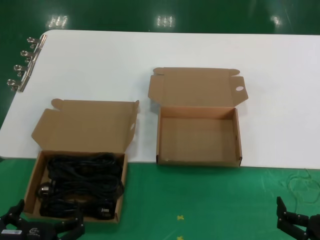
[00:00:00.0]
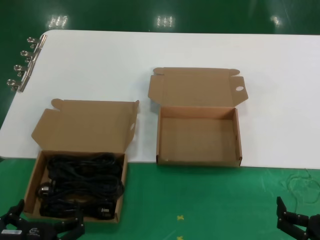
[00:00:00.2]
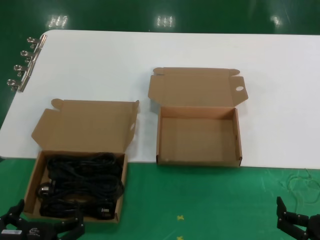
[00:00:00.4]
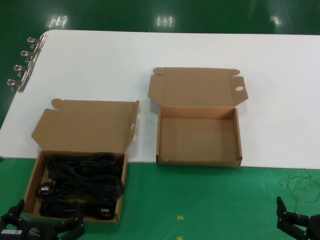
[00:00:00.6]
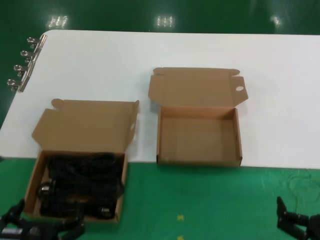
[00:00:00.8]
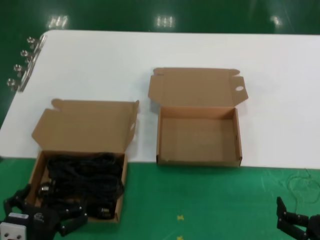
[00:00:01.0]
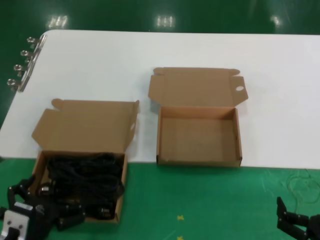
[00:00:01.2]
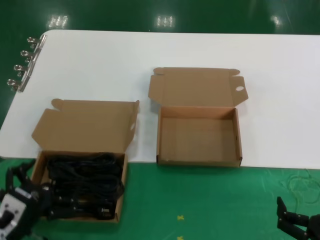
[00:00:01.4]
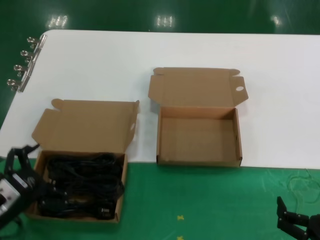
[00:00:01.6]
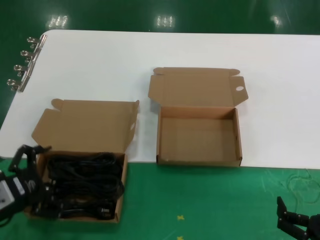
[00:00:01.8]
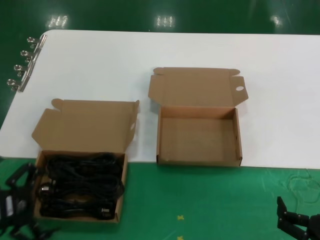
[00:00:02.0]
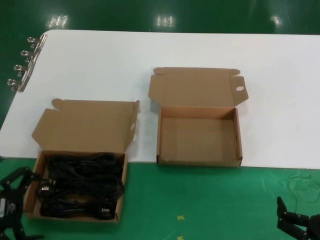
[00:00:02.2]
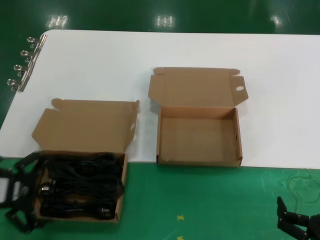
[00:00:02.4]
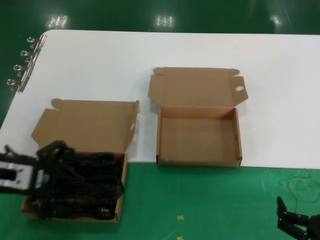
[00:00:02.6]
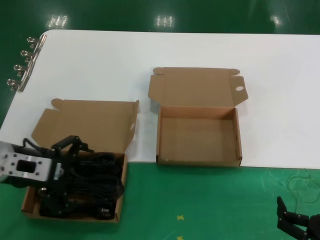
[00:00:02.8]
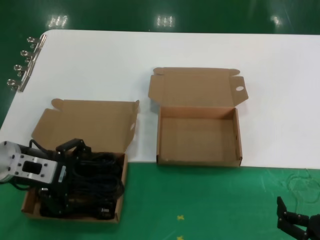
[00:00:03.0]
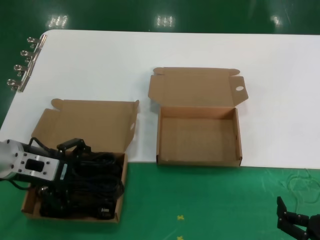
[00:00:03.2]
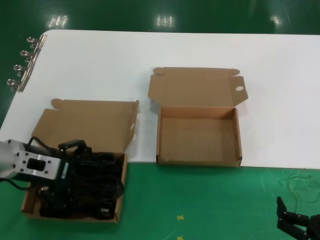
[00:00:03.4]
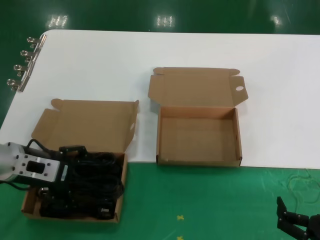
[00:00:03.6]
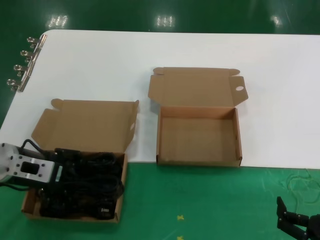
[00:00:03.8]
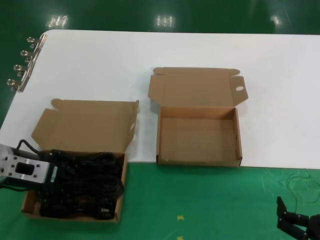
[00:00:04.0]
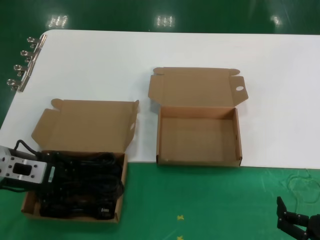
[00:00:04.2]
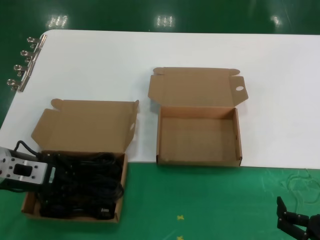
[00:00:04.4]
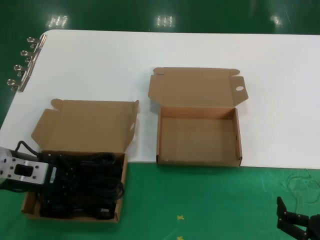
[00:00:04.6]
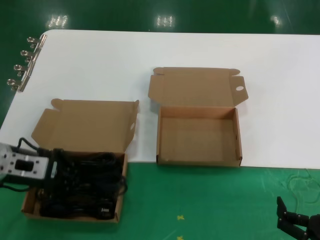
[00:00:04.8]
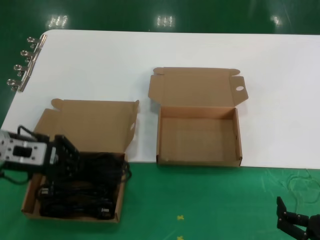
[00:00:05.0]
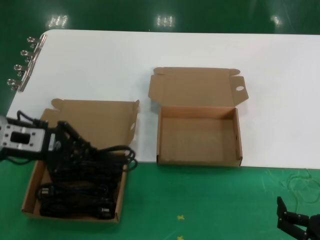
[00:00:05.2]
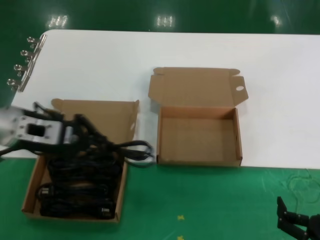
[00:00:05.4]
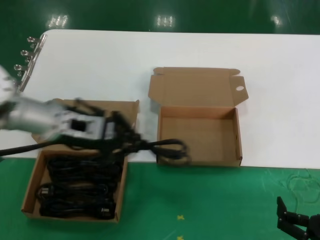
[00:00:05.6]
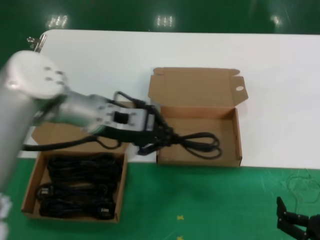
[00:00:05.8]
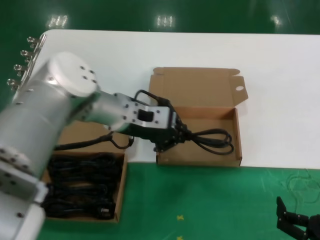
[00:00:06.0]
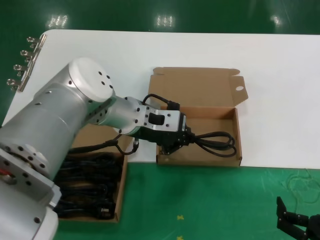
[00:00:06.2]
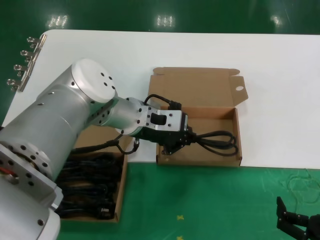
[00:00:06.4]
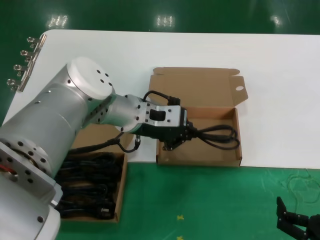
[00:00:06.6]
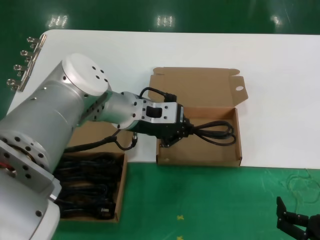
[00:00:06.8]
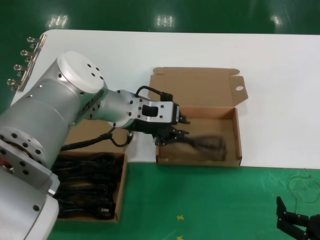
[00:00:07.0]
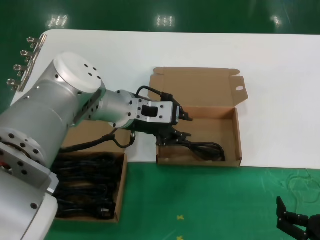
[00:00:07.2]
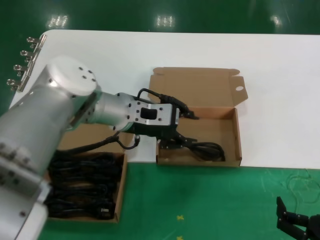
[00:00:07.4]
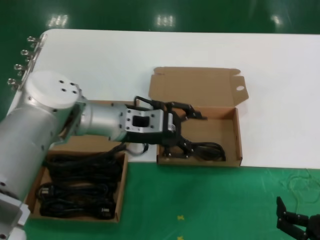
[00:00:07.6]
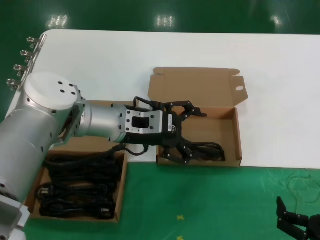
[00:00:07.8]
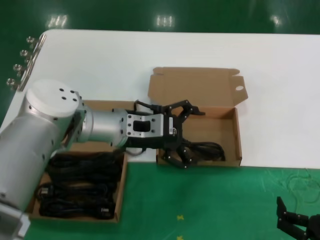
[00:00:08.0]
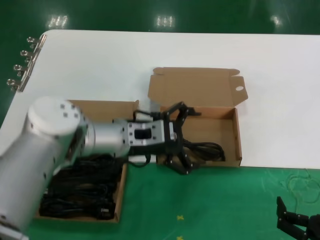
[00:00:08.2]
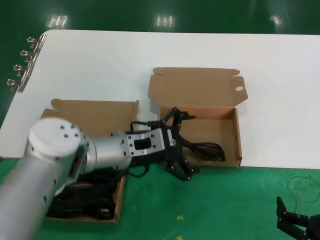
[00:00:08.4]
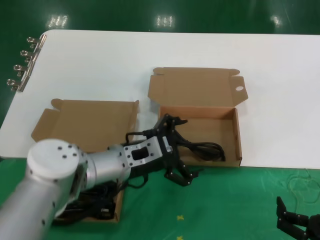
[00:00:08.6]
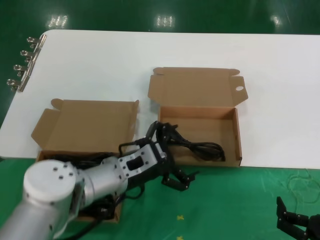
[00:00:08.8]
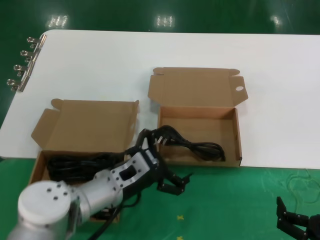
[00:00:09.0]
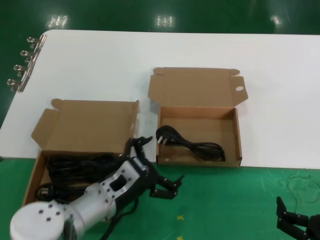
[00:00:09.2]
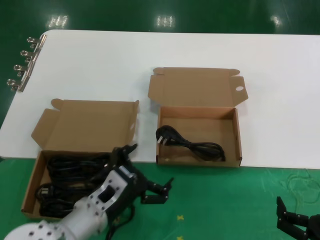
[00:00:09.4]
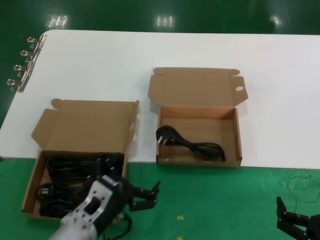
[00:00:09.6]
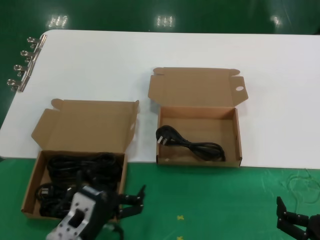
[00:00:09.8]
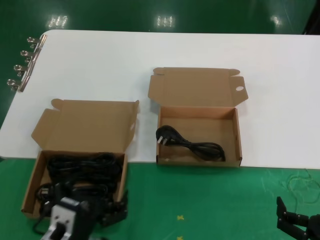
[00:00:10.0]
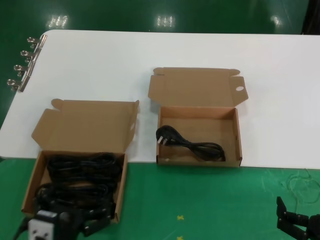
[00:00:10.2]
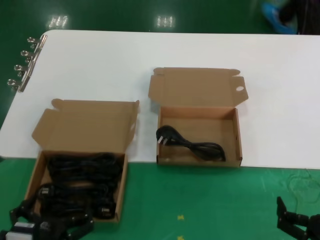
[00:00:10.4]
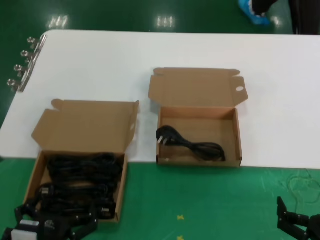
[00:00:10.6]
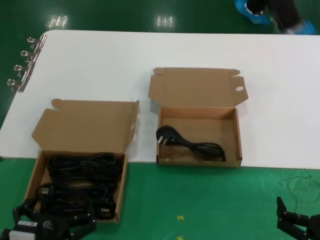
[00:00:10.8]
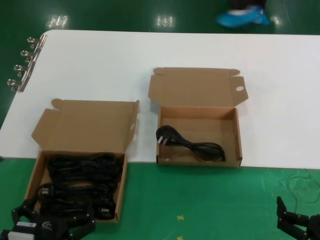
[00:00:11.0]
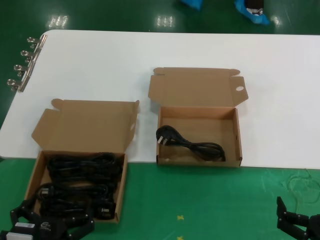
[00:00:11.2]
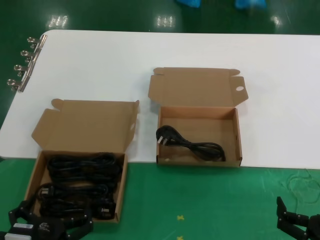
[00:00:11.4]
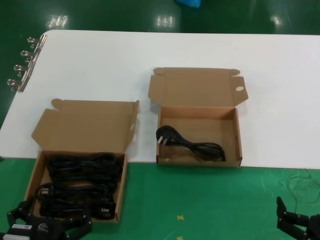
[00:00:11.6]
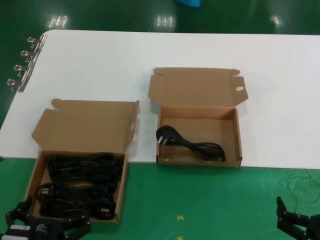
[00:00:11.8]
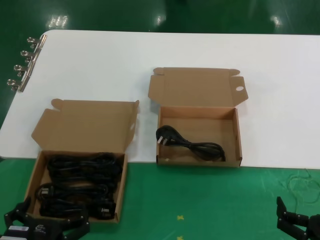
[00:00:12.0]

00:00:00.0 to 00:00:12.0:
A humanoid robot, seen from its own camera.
Task of the whole recording: take the parts from the box containing them and put them into an empty box.
Step, 00:00:00.0 to 00:00:04.4: Grasp the data cable.
Step, 00:00:04.8 to 00:00:07.6: Place the data cable in the another box.
00:00:00.0 to 00:00:01.6: The left hand heads to the left, forward and upward, covering about 15 cm.
00:00:01.6 to 00:00:03.0: The left hand heads upward and forward, covering roughly 15 cm.
00:00:03.0 to 00:00:04.4: The hands stay close to where they were, moving slightly.
00:00:04.4 to 00:00:06.0: The left hand moves to the right, about 20 cm.
00:00:06.0 to 00:00:07.6: There are only small adjustments of the hands.
00:00:07.6 to 00:00:09.0: The left hand shifts approximately 15 cm downward.
00:00:09.0 to 00:00:10.4: The left hand is displaced backward, downward and to the left by about 20 cm.
00:00:10.4 to 00:00:12.0: The hands stay close to where they were, moving slightly.

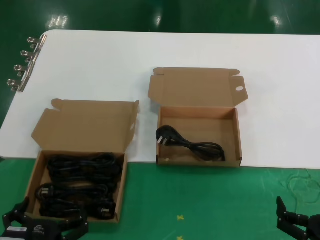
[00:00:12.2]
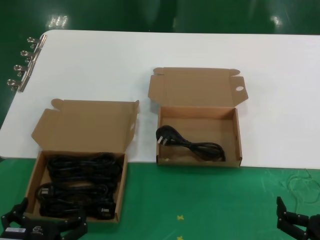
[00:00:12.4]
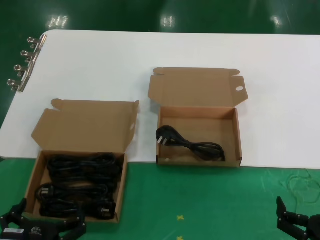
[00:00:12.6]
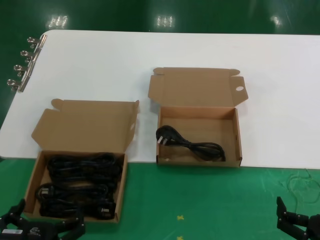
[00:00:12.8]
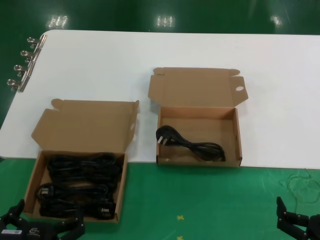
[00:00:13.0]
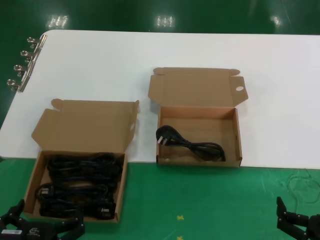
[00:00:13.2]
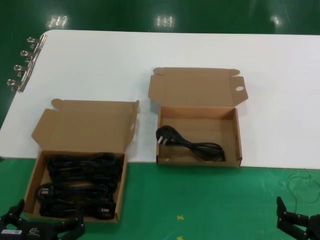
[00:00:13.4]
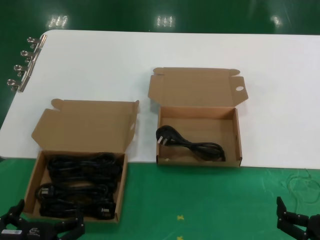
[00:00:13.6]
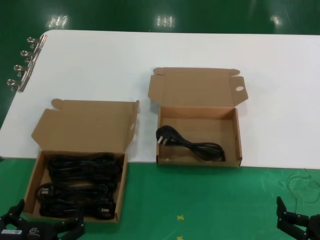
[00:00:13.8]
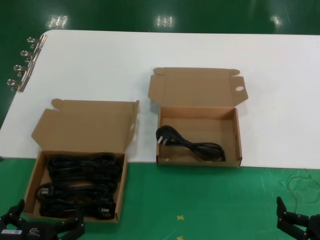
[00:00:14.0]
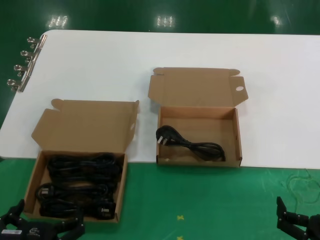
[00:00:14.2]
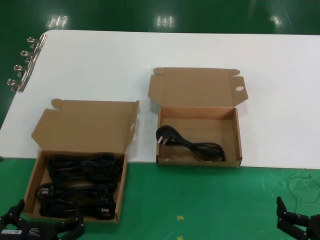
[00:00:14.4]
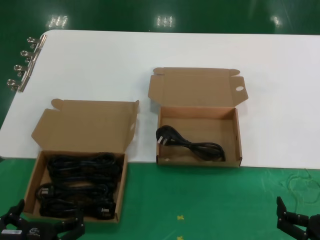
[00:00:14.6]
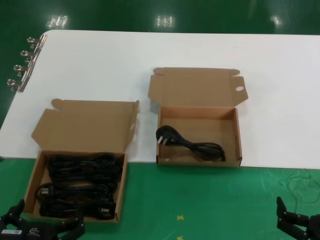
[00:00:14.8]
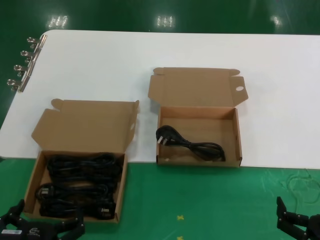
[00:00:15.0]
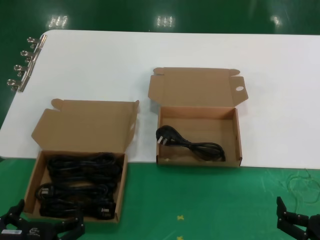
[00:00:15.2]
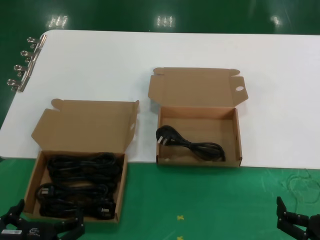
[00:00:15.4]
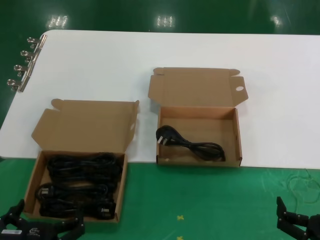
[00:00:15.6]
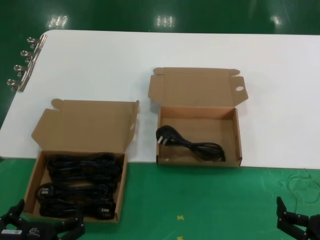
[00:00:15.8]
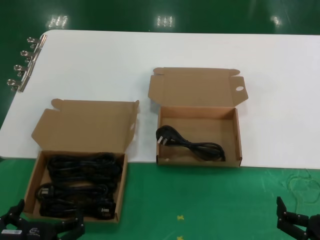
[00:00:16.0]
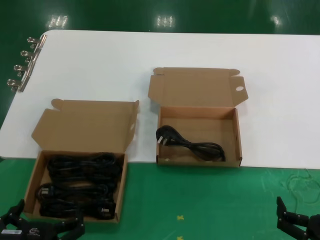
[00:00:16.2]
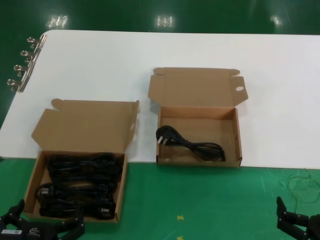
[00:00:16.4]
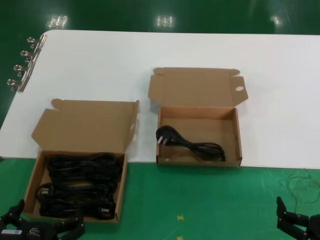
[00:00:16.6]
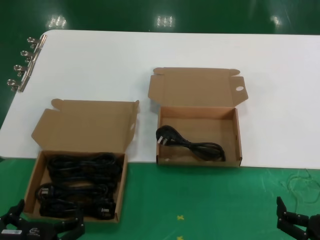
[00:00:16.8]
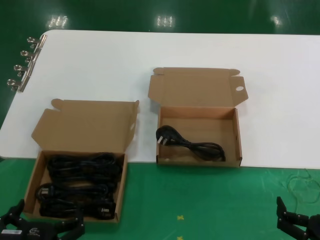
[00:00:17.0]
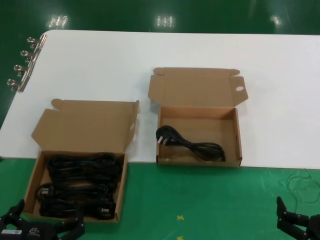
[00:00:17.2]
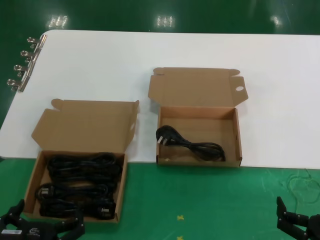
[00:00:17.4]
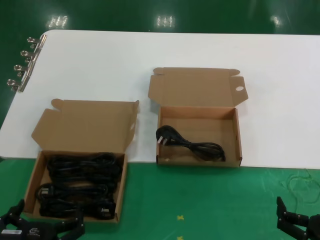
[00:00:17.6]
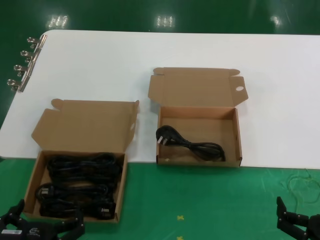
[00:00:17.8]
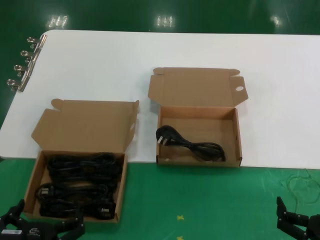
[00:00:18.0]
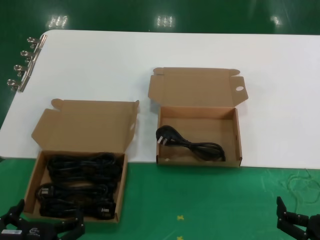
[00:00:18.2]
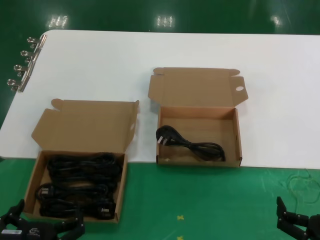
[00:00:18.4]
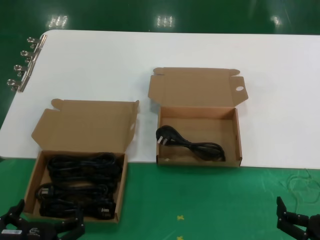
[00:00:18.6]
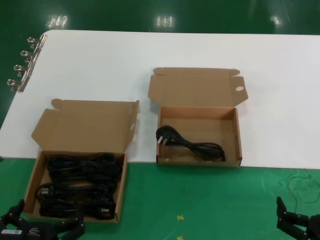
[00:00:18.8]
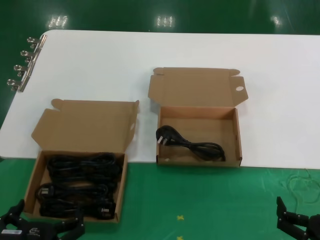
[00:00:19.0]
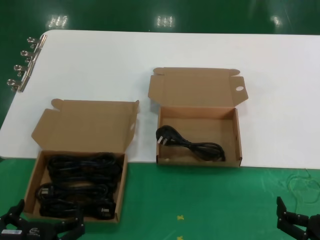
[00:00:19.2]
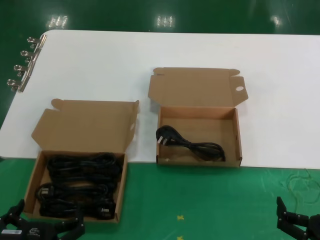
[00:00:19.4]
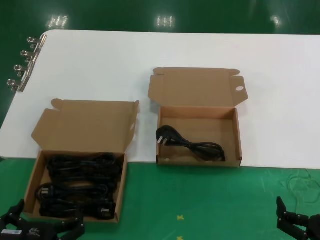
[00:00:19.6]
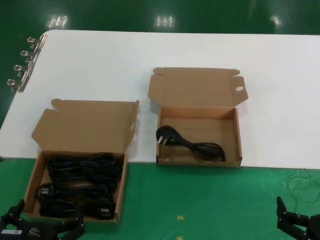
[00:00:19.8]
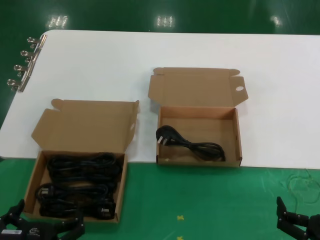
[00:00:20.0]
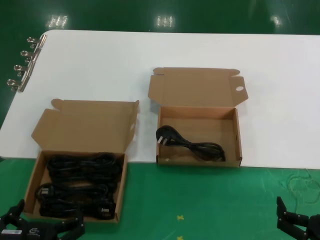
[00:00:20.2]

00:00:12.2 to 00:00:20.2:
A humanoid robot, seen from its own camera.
Task of the whole recording: take the parts from the box containing them and put them into an empty box.
00:00:12.2 to 00:00:20.2: Neither hand changes place.
